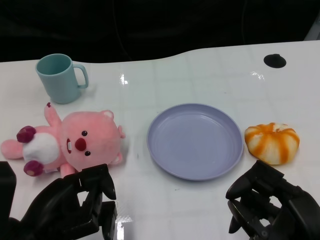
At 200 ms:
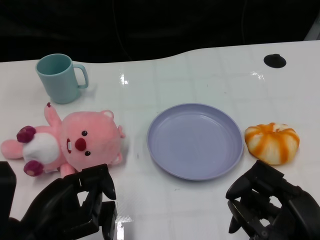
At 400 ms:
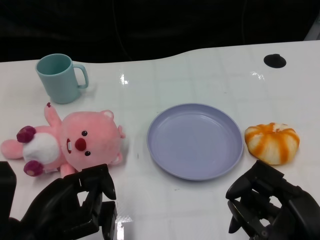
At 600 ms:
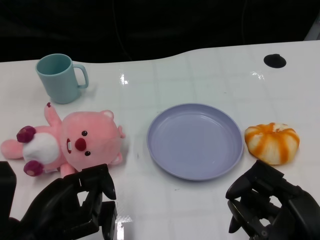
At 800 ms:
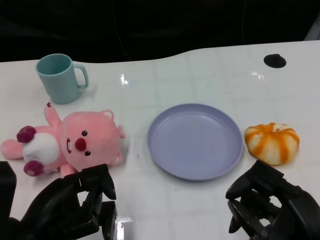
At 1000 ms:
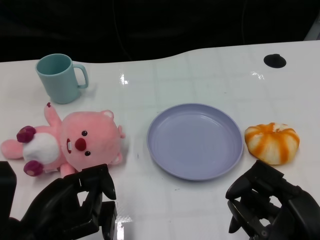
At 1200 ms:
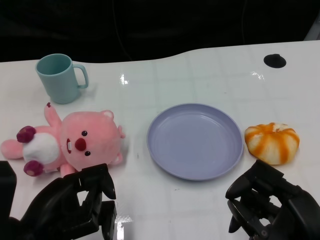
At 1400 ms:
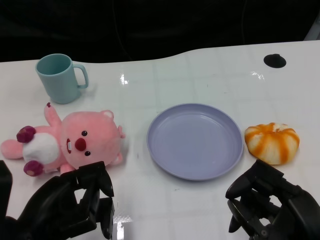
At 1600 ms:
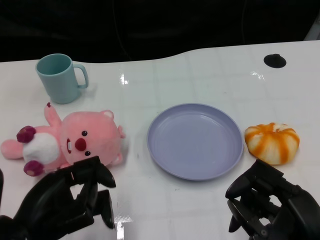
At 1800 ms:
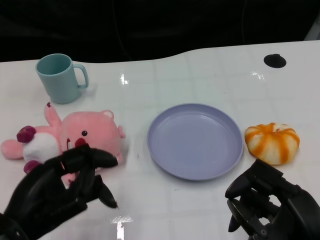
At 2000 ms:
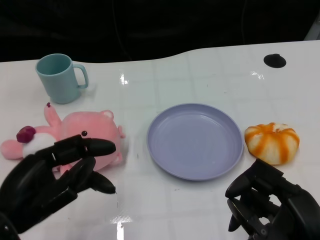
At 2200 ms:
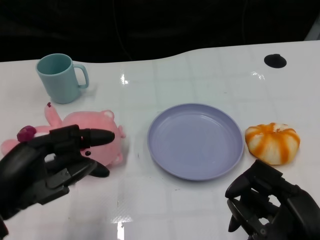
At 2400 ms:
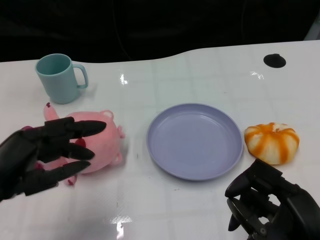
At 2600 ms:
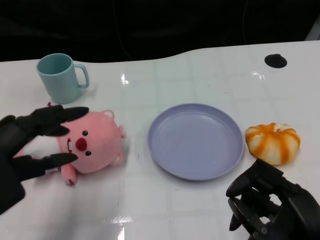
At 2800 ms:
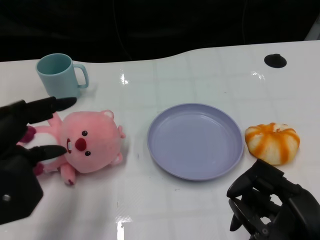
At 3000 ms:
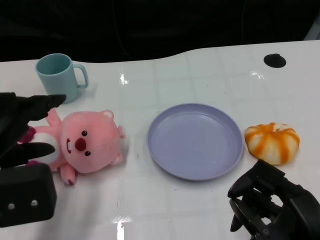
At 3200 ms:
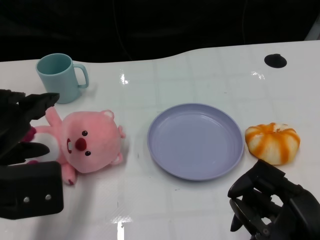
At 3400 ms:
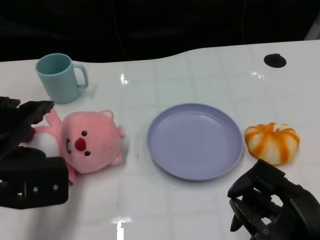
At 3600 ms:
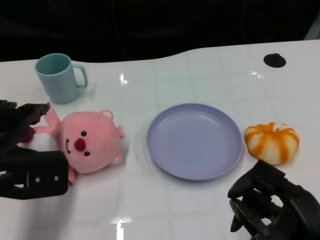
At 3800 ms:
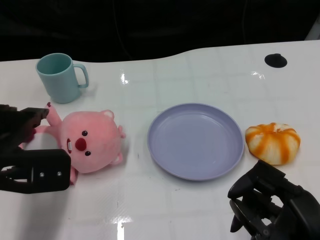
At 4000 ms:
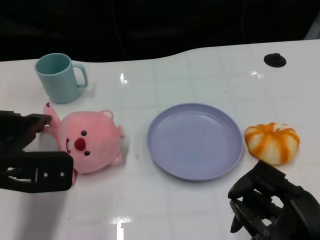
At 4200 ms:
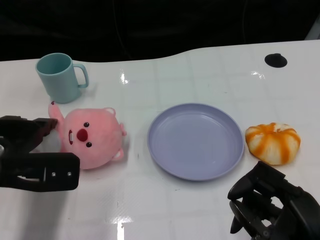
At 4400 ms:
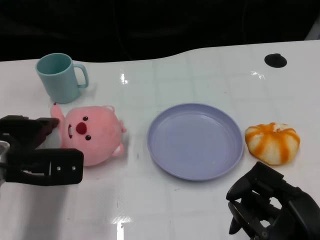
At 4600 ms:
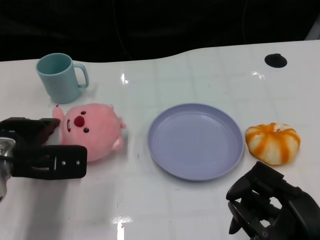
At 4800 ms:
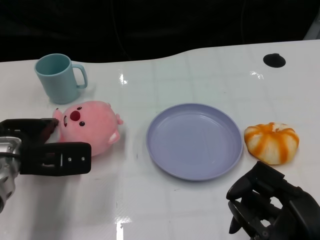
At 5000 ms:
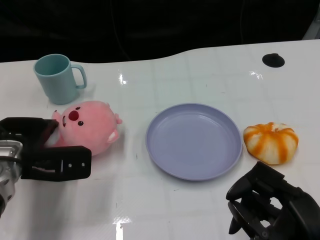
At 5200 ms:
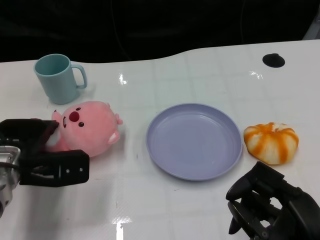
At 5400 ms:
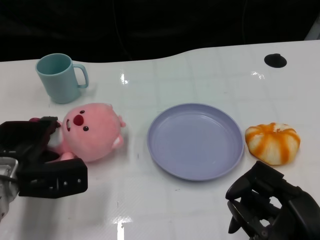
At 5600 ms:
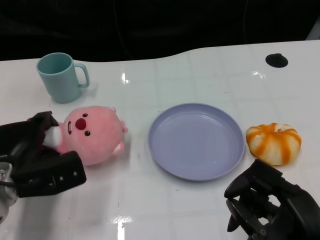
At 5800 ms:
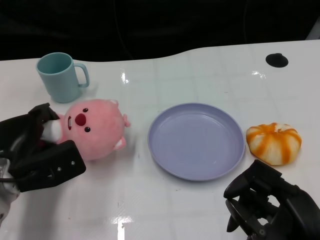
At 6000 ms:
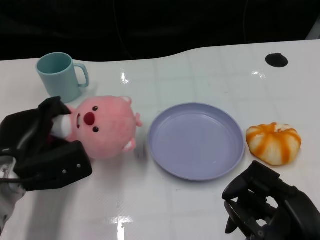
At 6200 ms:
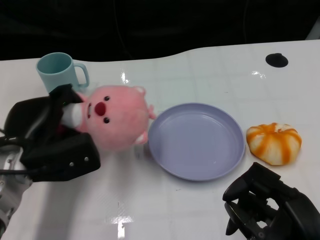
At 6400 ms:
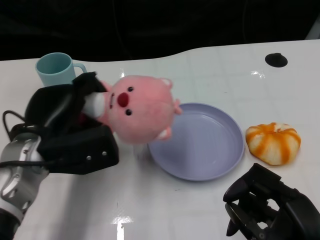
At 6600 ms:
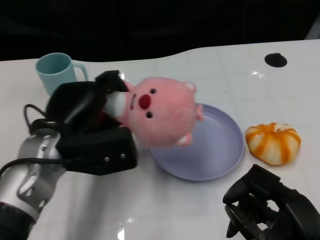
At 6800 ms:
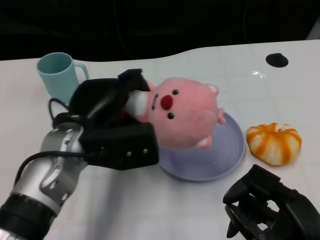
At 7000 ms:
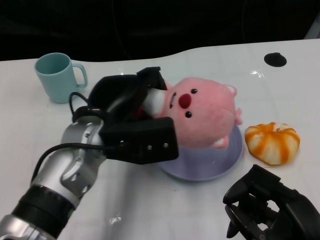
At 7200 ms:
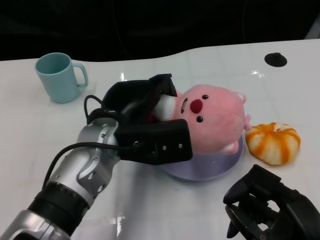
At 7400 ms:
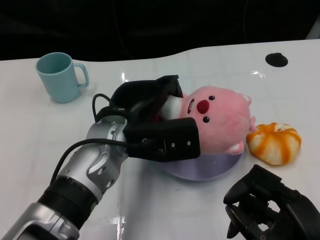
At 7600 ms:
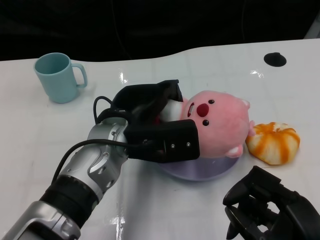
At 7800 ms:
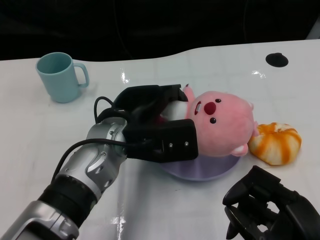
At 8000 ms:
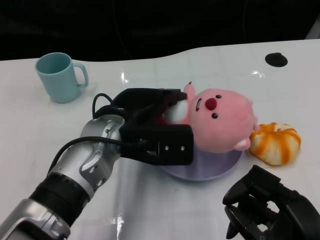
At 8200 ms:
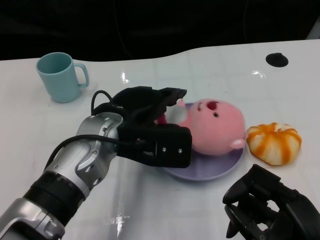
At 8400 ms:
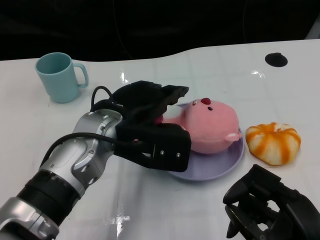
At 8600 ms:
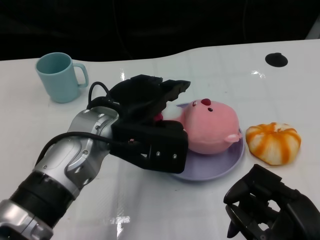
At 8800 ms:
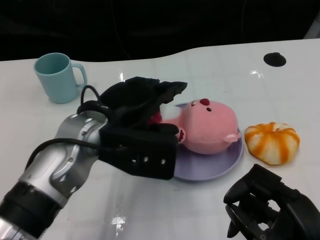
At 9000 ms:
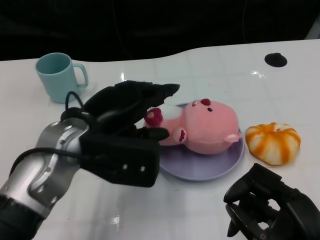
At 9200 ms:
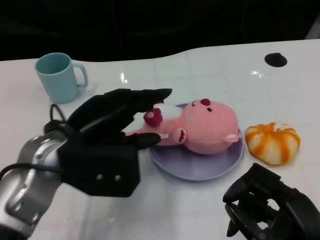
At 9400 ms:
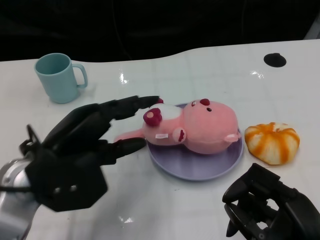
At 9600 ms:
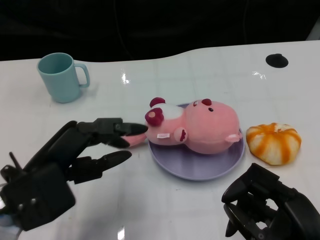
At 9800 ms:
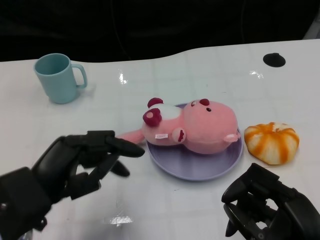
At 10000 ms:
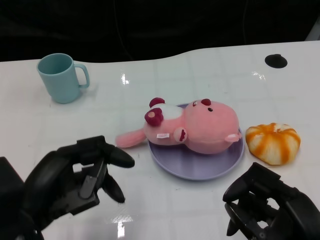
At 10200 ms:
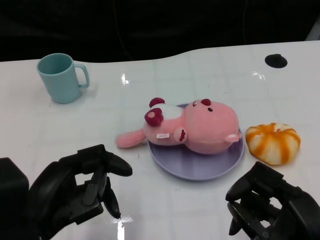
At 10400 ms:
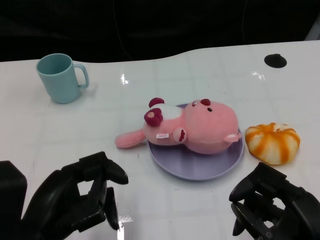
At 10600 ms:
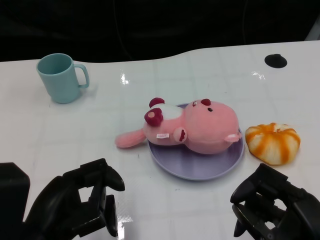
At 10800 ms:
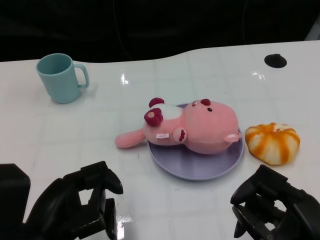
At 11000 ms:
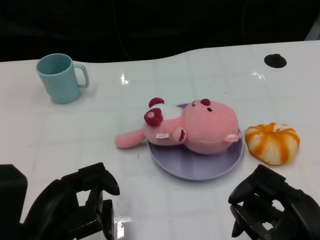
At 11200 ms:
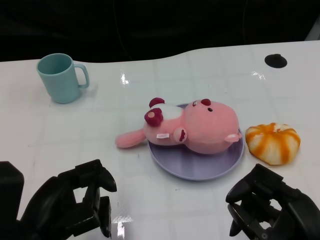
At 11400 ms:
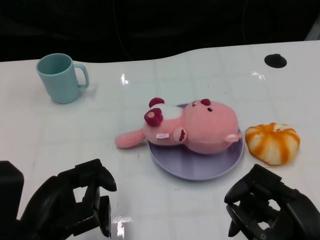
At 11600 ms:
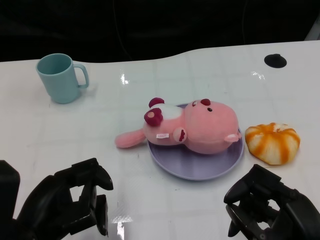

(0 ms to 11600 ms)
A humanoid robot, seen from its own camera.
Task of the whole recording: Pick up the doll on one side of the plate and place it into the plate.
Step, 1400 ms - 5800 ms: Grasp the pink doll with the left gripper.
Step, 6000 ms - 8400 ms: Place the pink doll into the plate with the left gripper.
1400 ms - 2800 ms: The left hand is displaced upward by approximately 10 cm.
2800 ms - 4400 ms: The left hand moves forward and downward, some 10 cm.
5800 ms - 7200 ms: The left hand shifts approximately 15 cm to the right and upward.
8800 ms - 10200 ms: The left hand moves backward and to the left, some 15 cm.
10200 ms - 11600 ms: There are only small adjustments of the hands.
